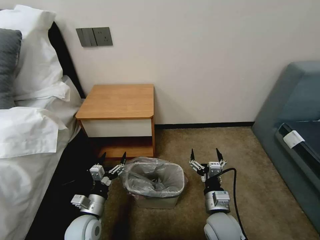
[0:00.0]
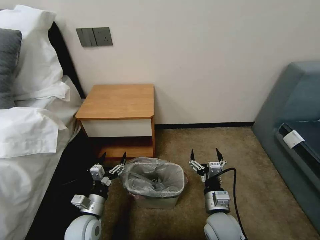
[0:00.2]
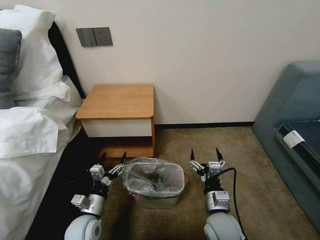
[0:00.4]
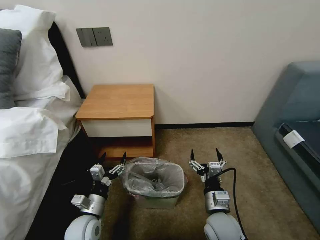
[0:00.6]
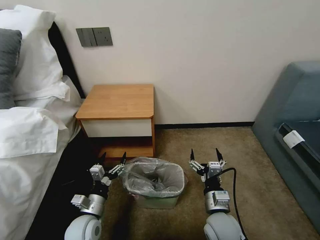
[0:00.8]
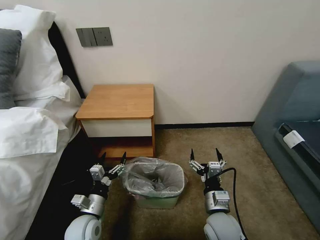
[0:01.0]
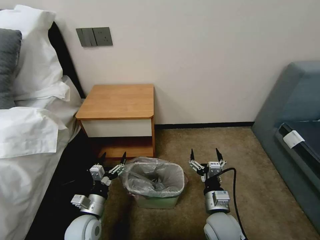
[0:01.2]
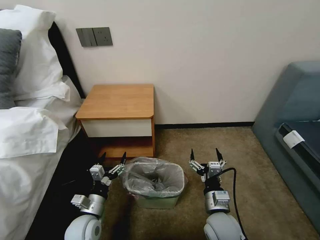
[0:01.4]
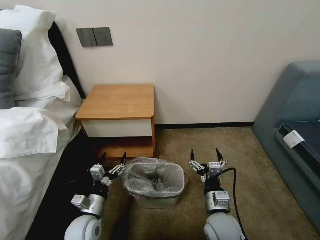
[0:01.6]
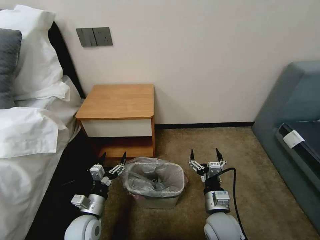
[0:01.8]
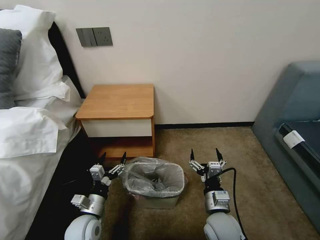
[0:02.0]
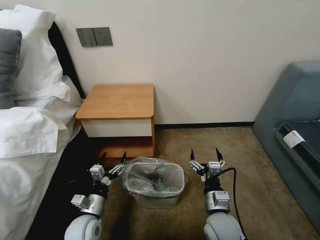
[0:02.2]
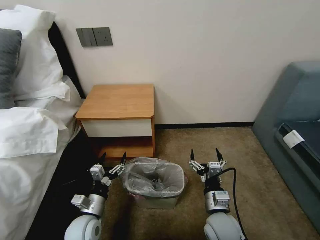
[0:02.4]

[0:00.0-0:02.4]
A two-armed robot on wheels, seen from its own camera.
Task of the whole recording: Pick up the garbage bag from the table and place it over the trash can.
0:00.0 to 0:02.4: Both grippers stay put.

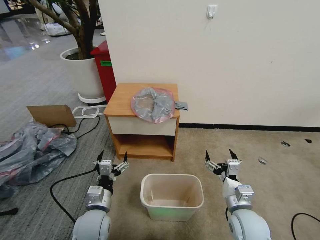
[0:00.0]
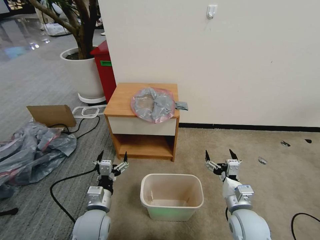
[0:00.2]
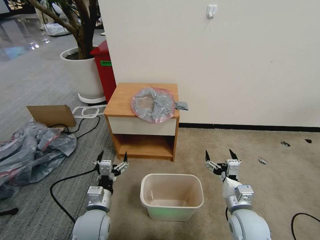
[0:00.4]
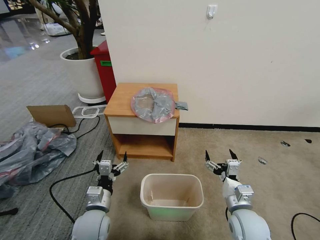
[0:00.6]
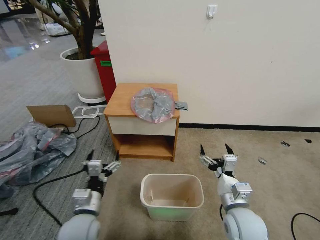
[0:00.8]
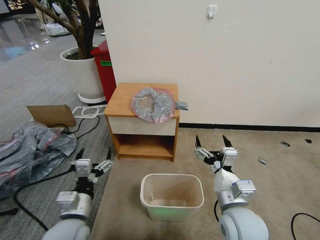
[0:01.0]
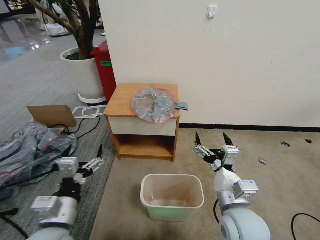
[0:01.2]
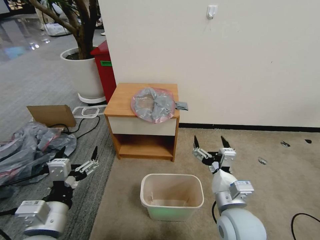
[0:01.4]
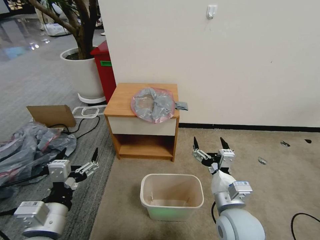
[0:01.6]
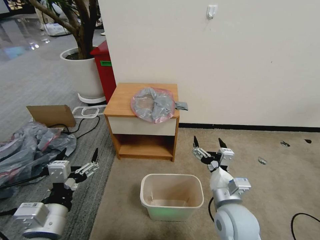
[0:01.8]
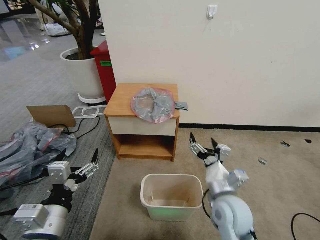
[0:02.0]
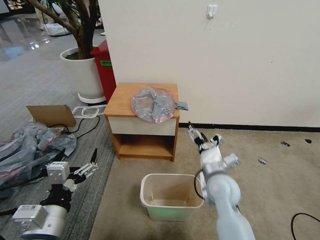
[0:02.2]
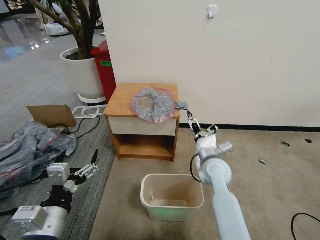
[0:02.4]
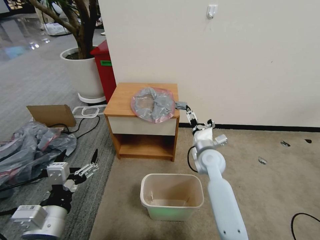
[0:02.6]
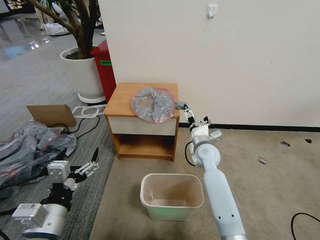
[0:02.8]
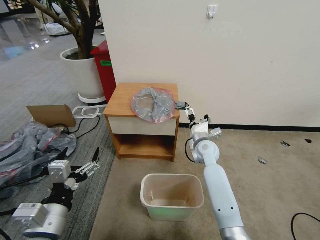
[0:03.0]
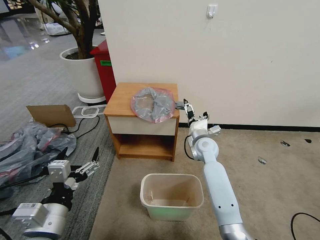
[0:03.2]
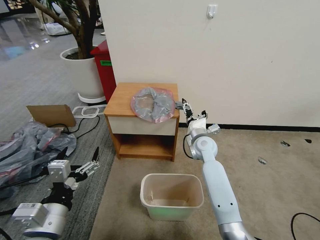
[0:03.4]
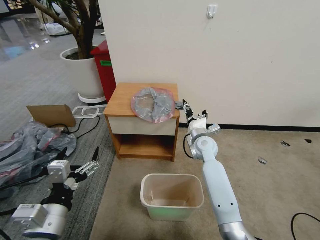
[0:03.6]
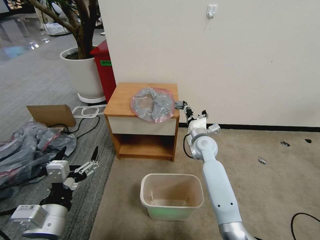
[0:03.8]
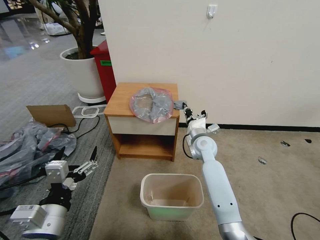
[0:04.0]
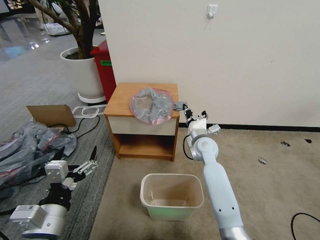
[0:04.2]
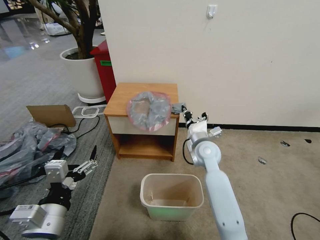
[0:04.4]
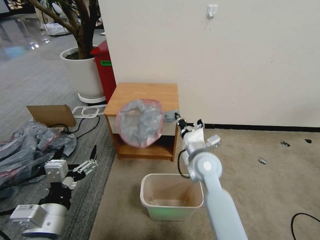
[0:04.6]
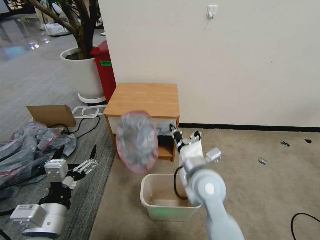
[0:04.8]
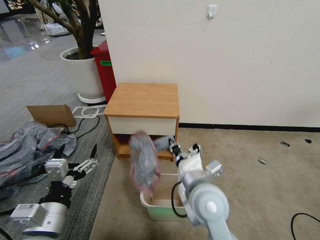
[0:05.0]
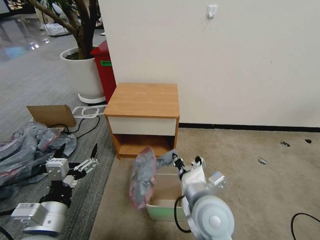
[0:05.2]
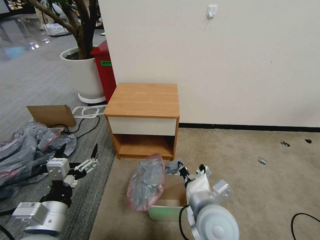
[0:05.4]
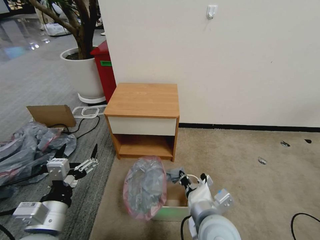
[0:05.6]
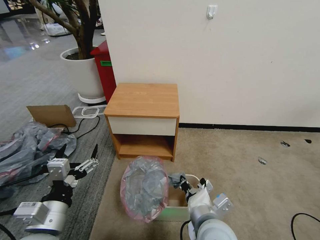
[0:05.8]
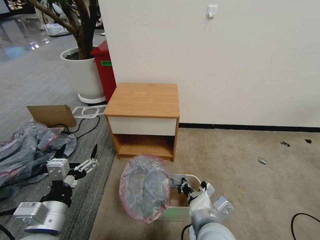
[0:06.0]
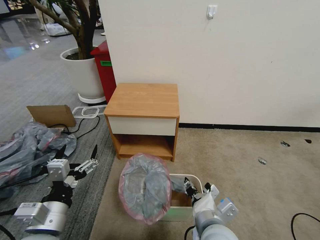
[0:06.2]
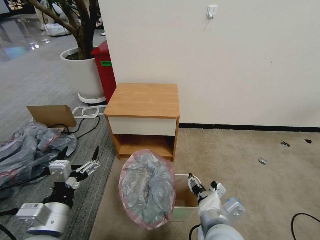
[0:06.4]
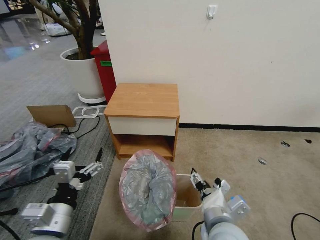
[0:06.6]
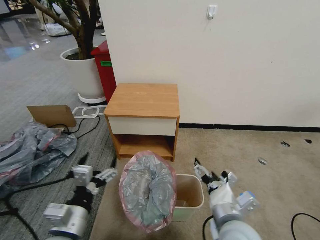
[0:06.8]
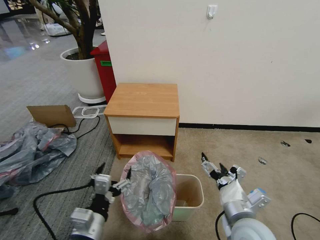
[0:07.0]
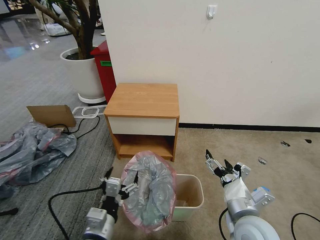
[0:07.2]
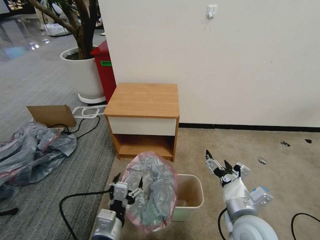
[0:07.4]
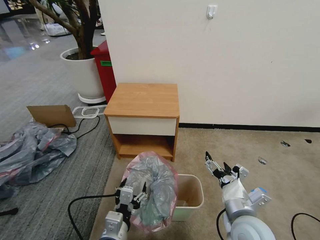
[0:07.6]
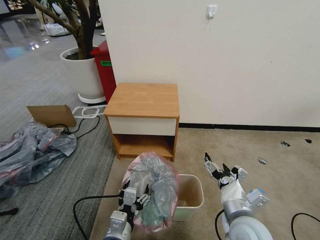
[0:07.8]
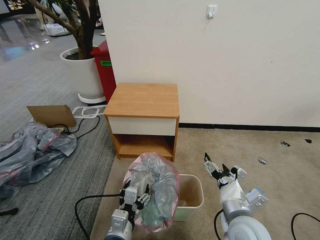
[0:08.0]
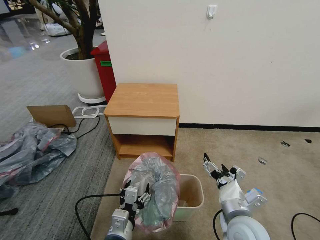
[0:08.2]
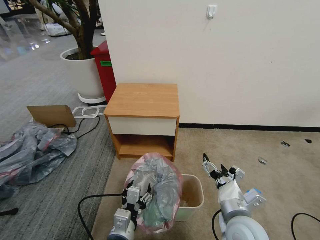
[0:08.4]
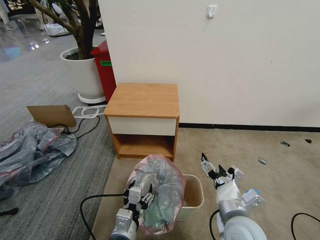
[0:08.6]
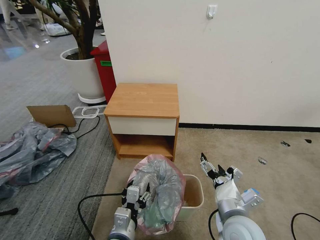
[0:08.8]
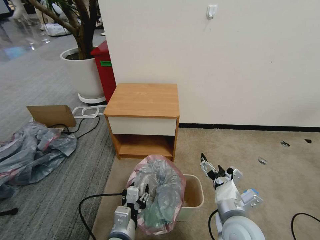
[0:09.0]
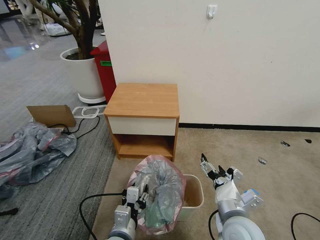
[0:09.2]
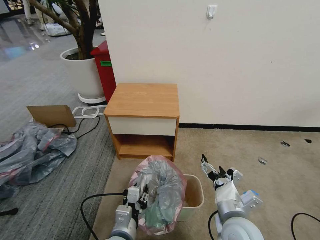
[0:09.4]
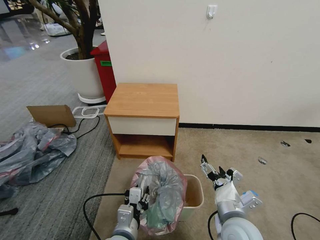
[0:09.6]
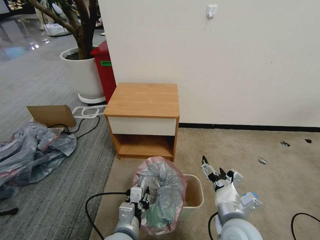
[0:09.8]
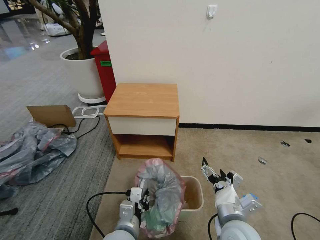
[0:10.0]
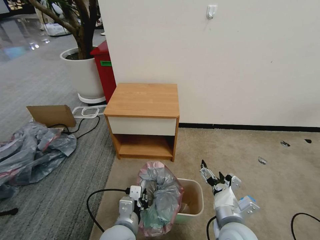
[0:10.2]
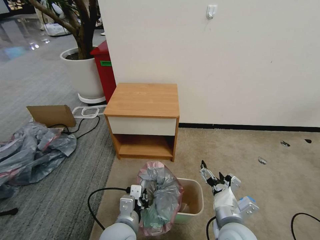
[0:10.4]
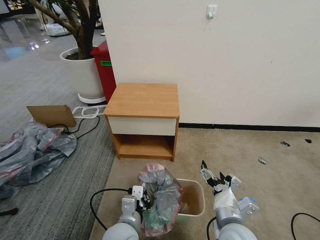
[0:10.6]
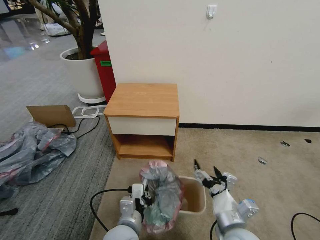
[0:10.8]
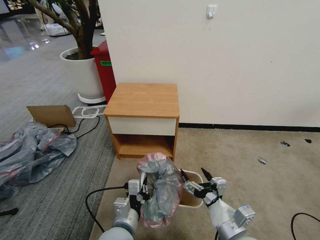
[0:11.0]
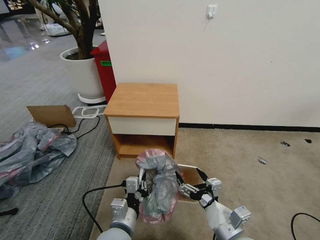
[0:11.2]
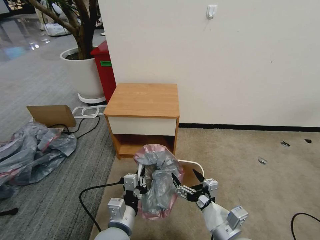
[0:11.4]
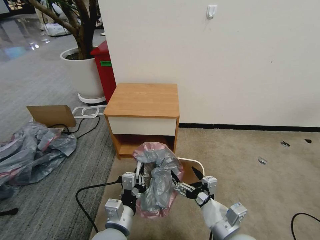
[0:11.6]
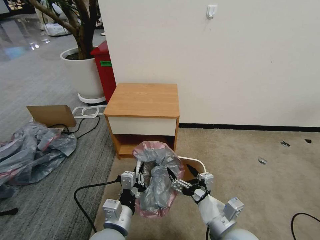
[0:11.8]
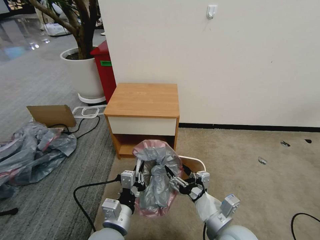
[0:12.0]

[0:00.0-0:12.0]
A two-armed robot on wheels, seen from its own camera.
Task of the whole recording: Pick up the garbage bag from the table and place it over the trash can.
0:01.6 to 0:03.0: The right gripper is displaced forward by some 25 cm.
0:03.0 to 0:04.4: The right gripper is displaced backward by roughly 5 cm, and closes up.
0:04.4 to 0:06.0: The right gripper goes approximately 25 cm backward.
0:06.0 to 0:07.6: The left gripper travels to the right and downward by about 15 cm. The right gripper travels to the right by some 10 cm, and opens up.
0:07.6 to 0:09.0: The grippers make only small movements.
0:09.0 to 0:10.4: The left gripper closes up.

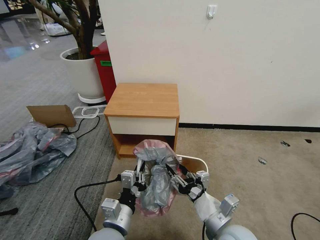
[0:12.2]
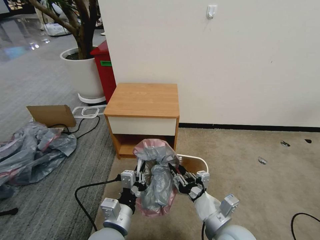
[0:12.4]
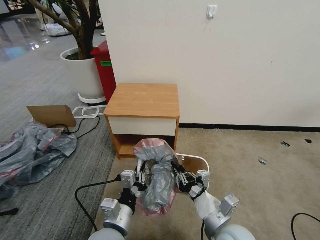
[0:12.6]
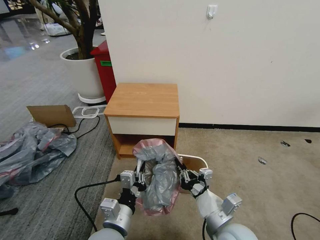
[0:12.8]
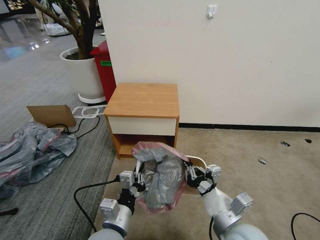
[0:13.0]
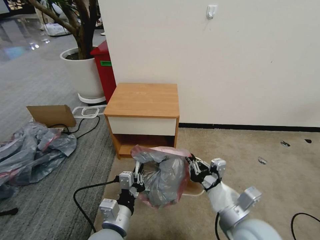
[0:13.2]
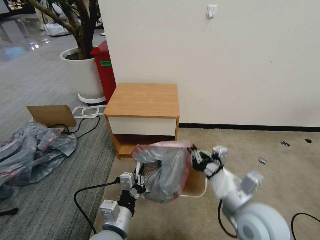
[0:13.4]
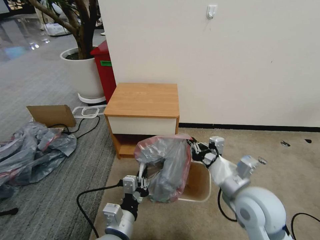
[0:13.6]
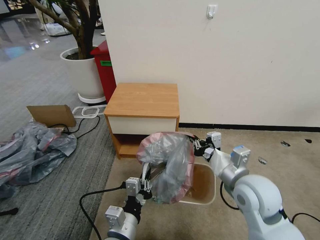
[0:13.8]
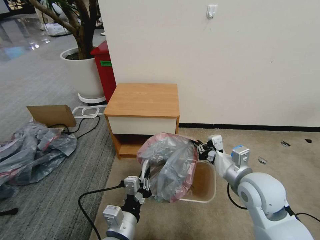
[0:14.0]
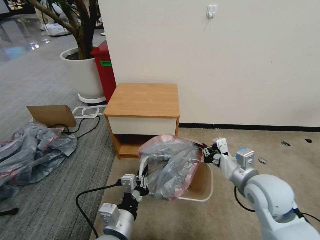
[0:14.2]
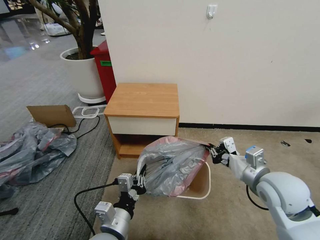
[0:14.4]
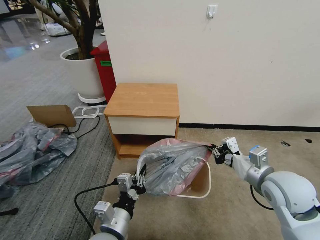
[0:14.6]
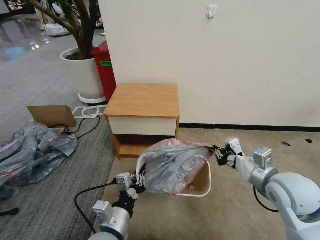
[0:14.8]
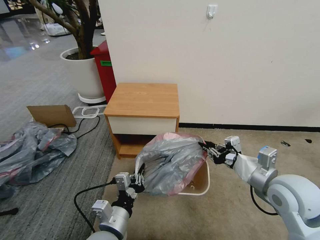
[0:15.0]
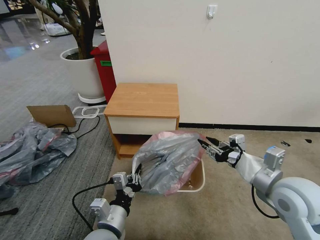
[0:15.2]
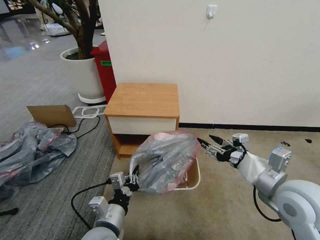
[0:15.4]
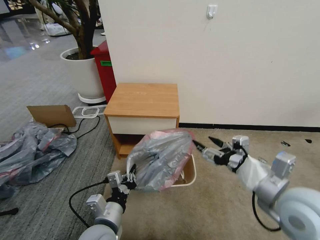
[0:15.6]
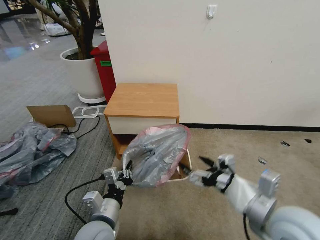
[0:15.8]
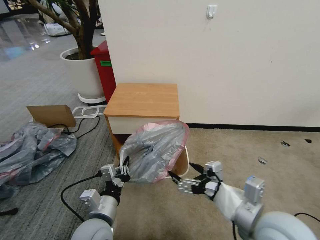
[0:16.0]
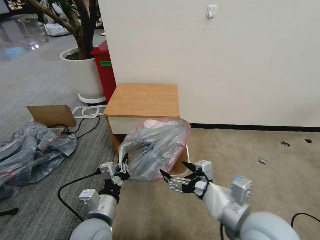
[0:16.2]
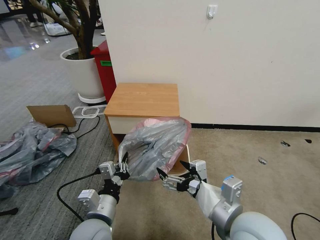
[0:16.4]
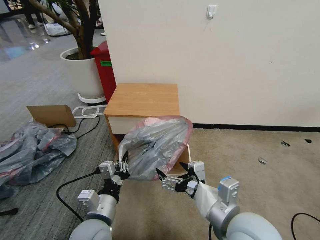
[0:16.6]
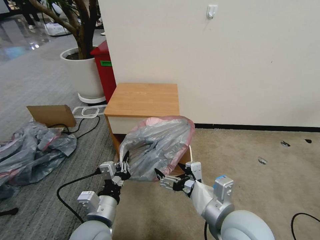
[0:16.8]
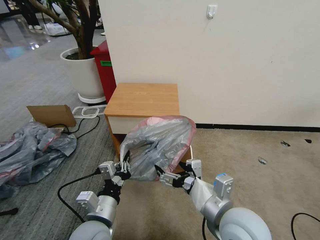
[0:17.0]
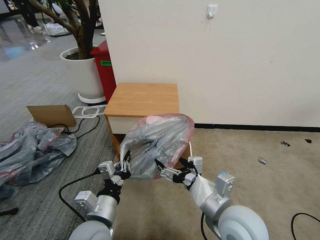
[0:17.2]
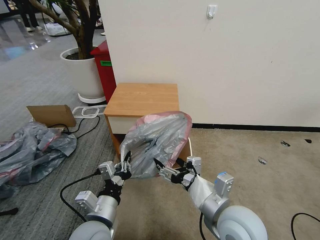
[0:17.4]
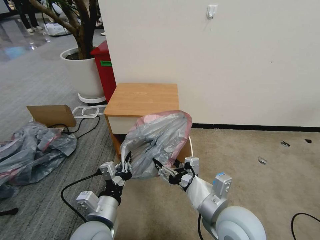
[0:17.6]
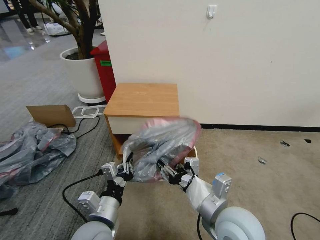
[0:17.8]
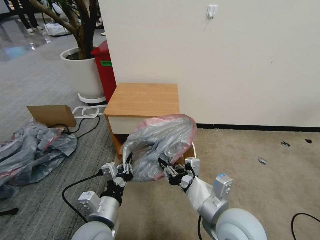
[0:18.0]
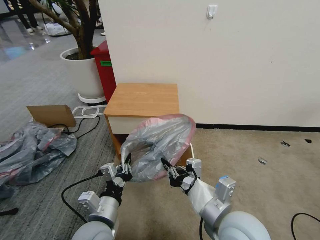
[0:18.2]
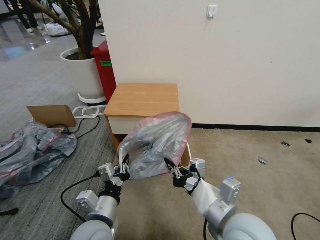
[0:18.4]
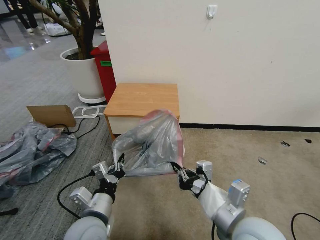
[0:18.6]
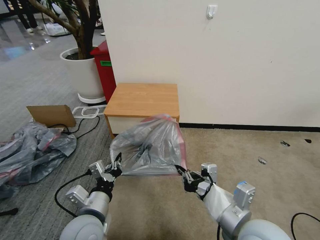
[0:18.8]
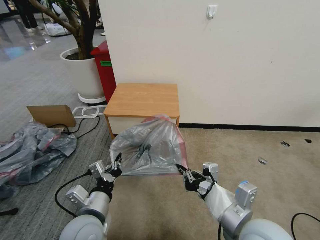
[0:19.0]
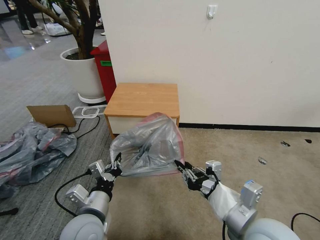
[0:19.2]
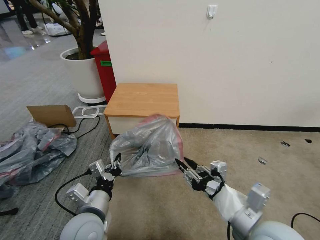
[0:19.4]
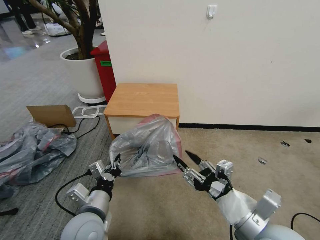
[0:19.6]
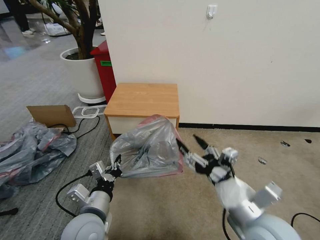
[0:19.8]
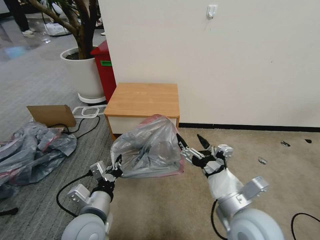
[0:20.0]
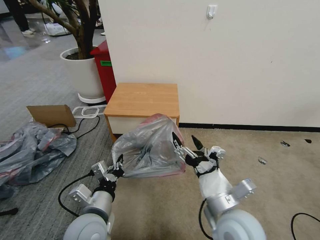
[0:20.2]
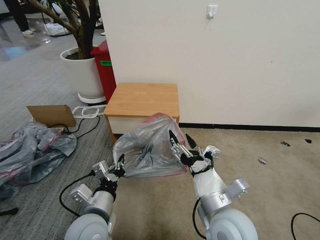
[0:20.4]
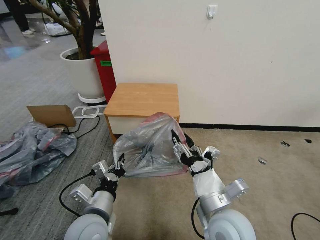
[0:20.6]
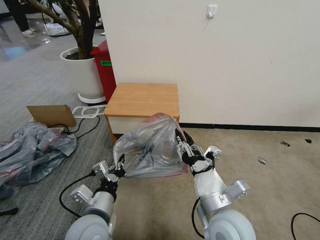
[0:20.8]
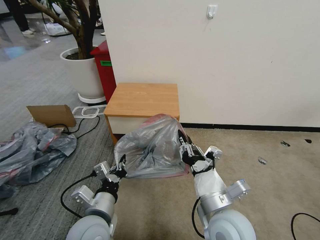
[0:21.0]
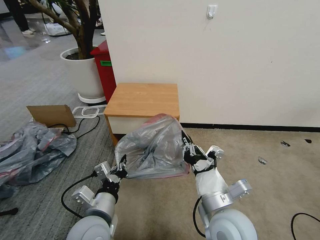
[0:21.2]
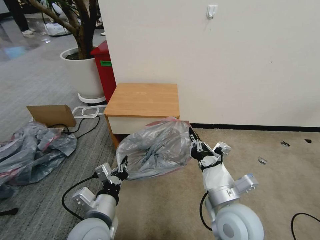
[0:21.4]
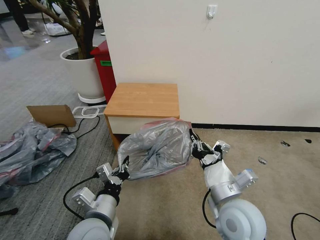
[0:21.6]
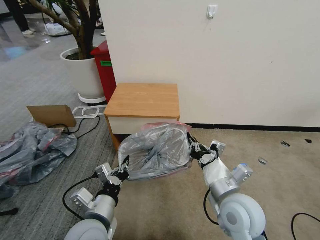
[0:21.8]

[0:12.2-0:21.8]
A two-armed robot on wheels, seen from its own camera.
Task of the whole recording: Pick up the garbage bag from the table and place it over the trash can.
0:12.2 to 0:13.8: The right gripper shifts some 15 cm upward and forward, and closes up.
0:13.8 to 0:15.4: The right gripper goes about 5 cm to the right, and opens its fingers.
0:15.4 to 0:17.0: The right gripper is displaced to the left by roughly 15 cm, and opens.
0:17.0 to 0:18.6: The right gripper closes up.
0:18.6 to 0:20.2: The right gripper opens up.
0:20.2 to 0:21.8: The right gripper closes its fingers.
